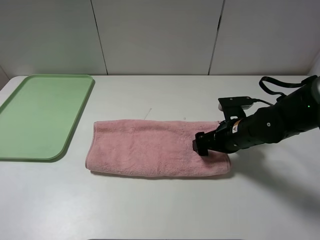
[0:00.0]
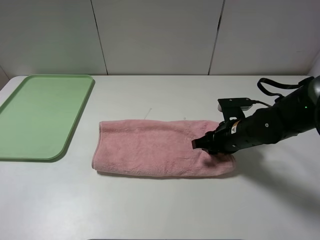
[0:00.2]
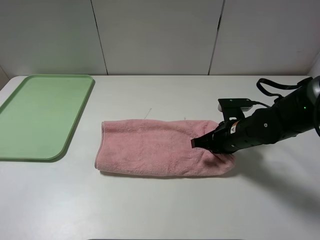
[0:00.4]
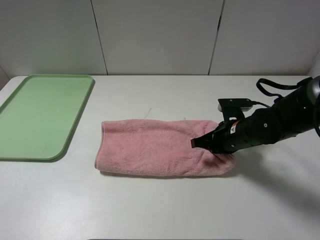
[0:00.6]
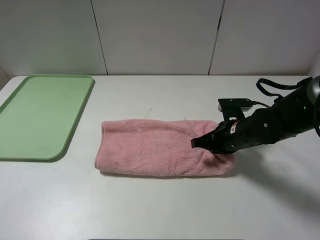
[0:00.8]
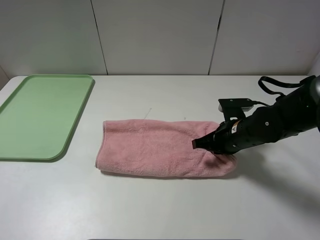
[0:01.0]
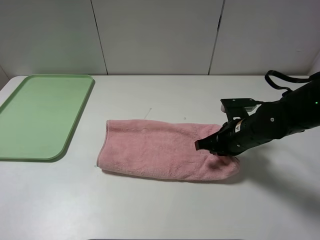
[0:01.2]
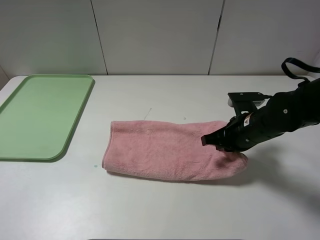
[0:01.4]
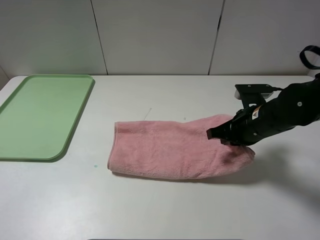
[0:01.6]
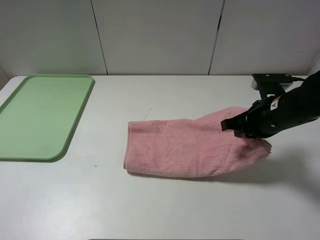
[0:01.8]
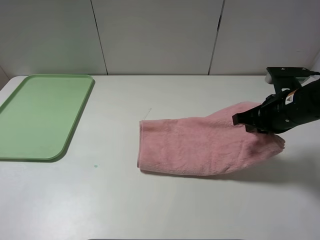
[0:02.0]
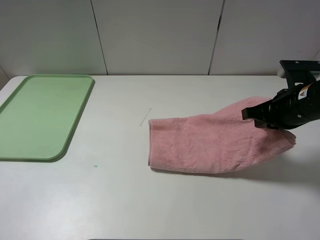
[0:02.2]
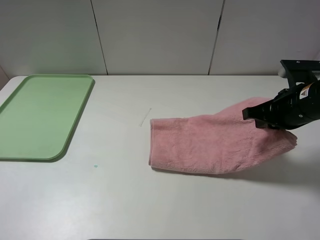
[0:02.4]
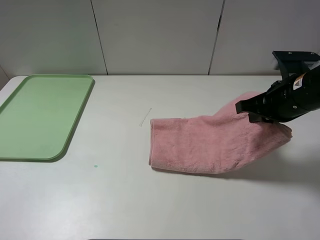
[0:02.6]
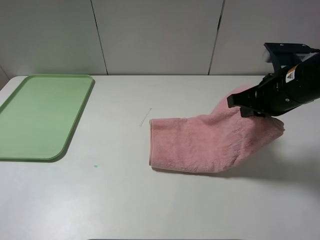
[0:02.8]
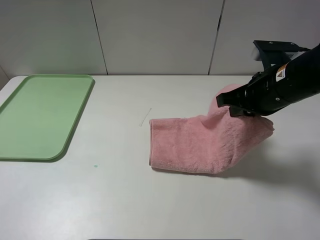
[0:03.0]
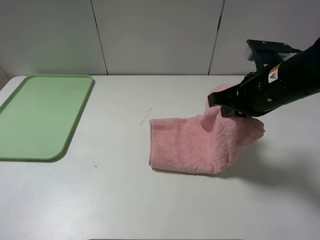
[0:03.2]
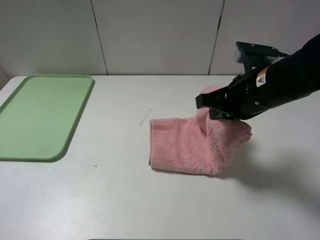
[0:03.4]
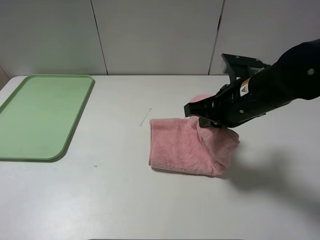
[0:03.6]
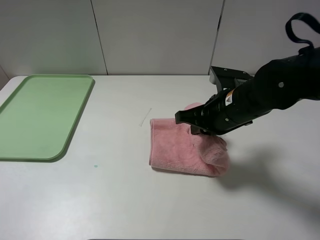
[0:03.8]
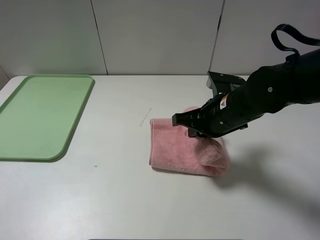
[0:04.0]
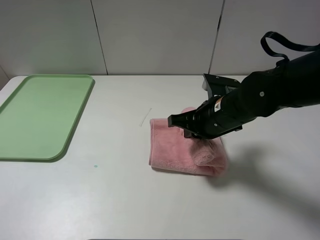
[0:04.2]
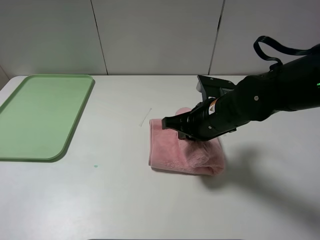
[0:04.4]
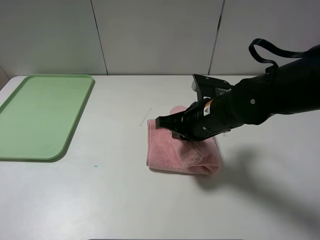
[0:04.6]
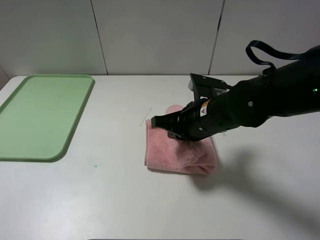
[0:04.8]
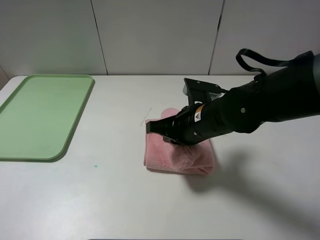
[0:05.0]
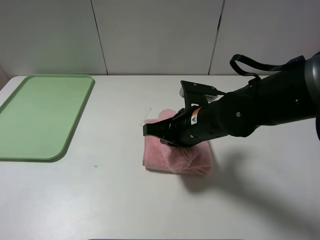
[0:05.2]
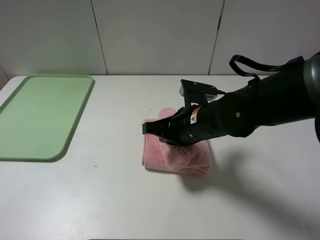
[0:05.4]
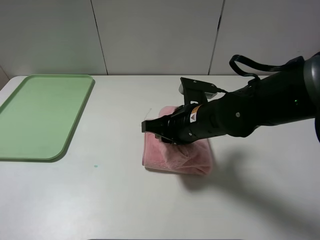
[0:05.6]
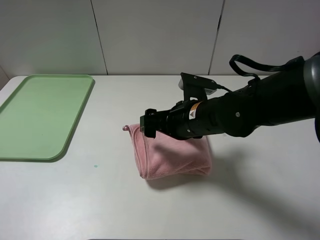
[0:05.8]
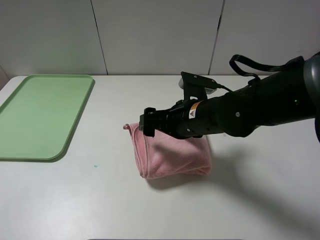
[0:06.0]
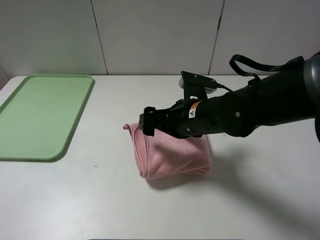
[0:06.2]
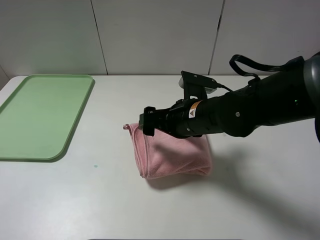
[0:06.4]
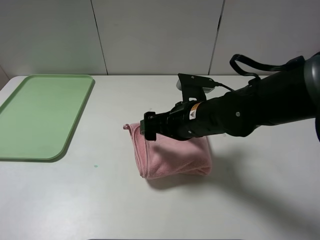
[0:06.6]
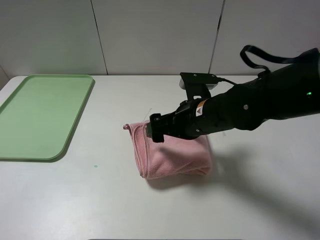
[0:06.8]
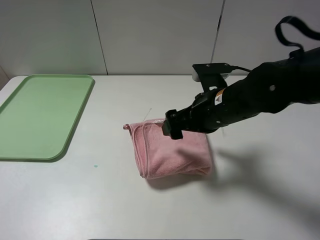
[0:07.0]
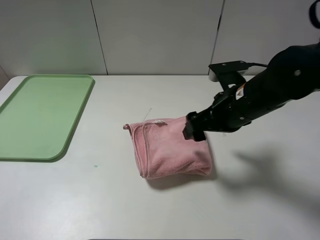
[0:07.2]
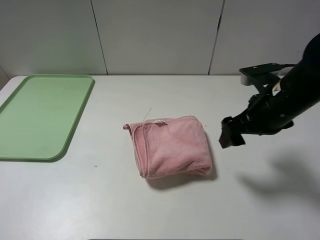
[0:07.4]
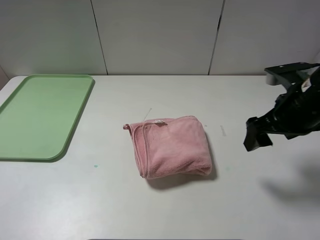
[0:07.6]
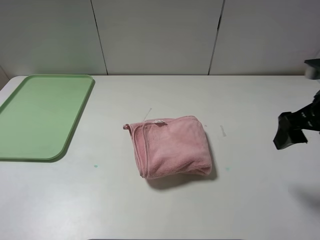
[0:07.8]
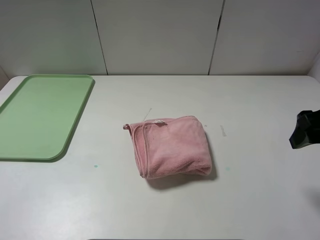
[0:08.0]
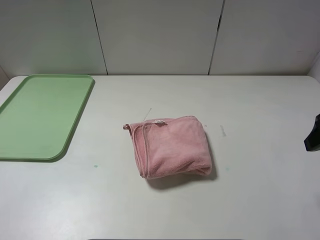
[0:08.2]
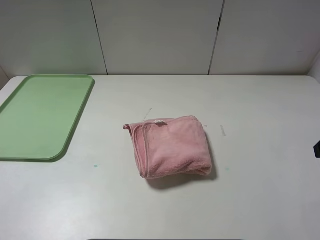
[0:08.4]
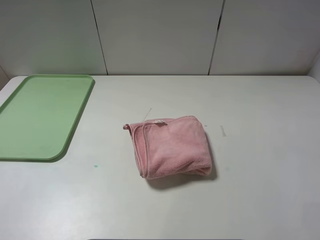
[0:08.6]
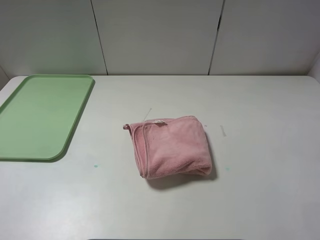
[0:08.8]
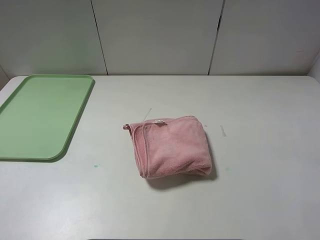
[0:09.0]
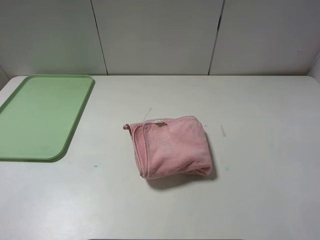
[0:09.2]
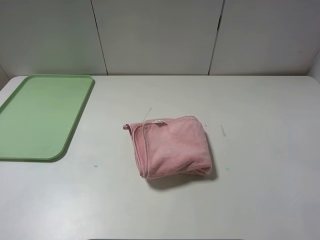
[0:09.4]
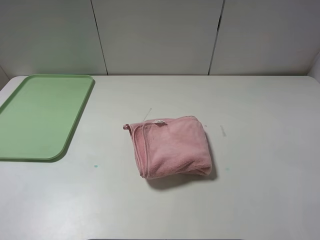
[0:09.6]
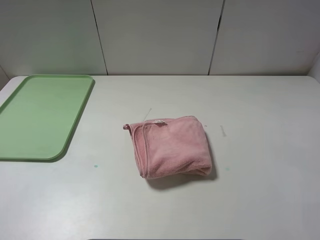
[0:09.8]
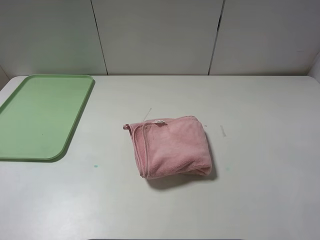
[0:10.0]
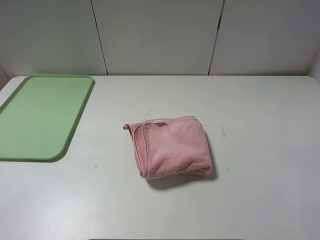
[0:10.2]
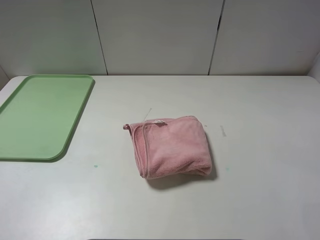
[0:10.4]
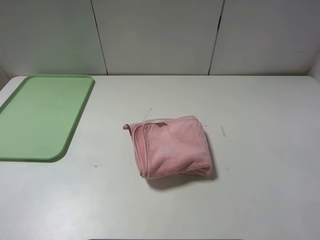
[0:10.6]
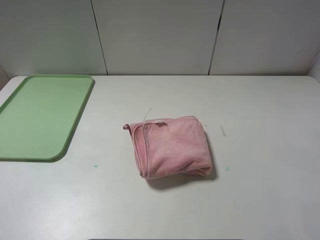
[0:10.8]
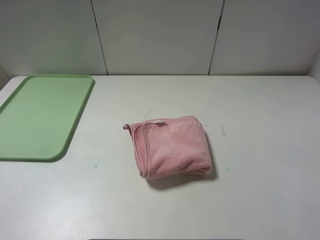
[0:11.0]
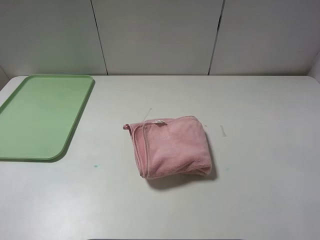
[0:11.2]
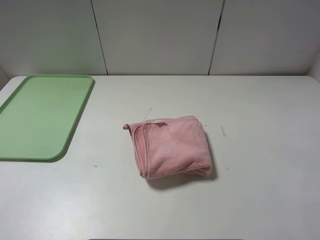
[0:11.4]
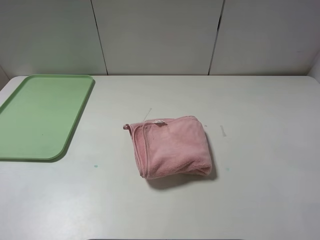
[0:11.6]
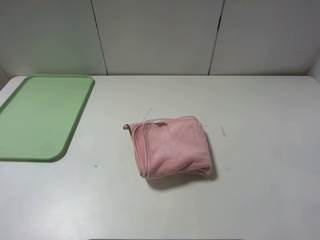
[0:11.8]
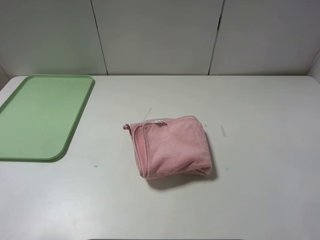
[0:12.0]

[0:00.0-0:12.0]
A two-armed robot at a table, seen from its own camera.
Step, 0:00.0 to 0:06.0: Fold the pink towel from right to left with right gripper.
0:00.0 to 0:01.6: The right gripper goes about 5 cm upward, and closes.
0:01.6 to 0:03.0: The right gripper moves upward, approximately 10 cm.
0:03.0 to 0:04.4: The right gripper is displaced to the left and downward by some 10 cm.
0:04.4 to 0:06.0: The right gripper opens its fingers.
0:06.0 to 0:07.6: The right gripper is displaced to the right and upward by about 20 cm.
0:07.6 to 0:09.0: The right gripper moves backward, approximately 15 cm.

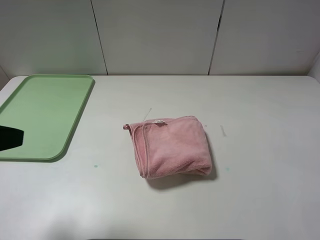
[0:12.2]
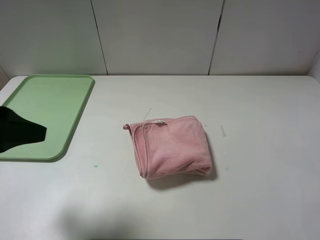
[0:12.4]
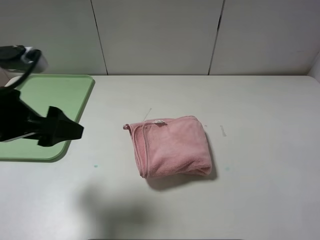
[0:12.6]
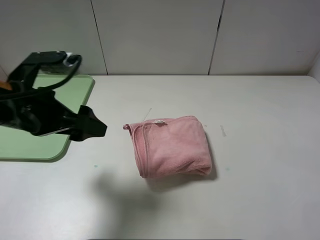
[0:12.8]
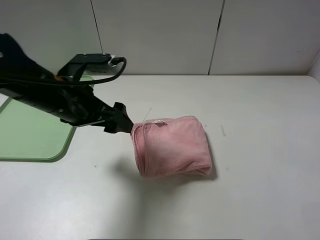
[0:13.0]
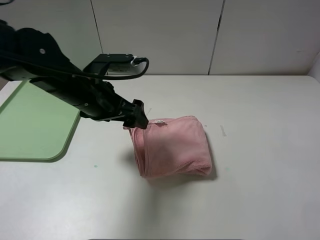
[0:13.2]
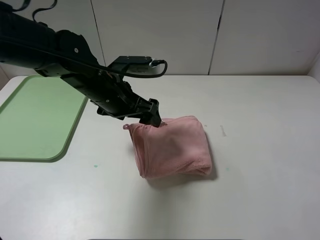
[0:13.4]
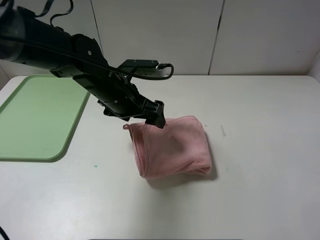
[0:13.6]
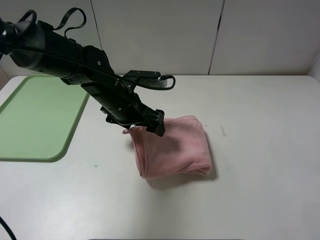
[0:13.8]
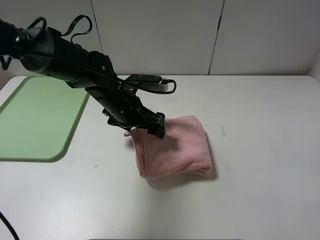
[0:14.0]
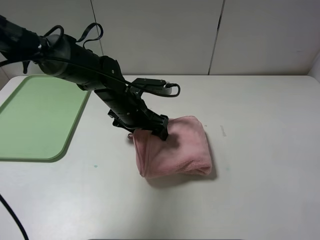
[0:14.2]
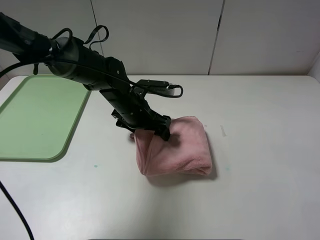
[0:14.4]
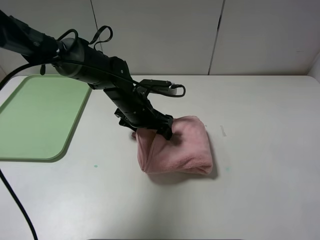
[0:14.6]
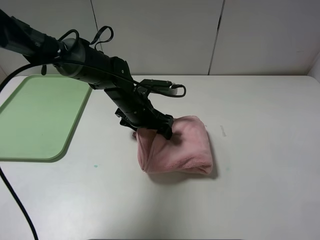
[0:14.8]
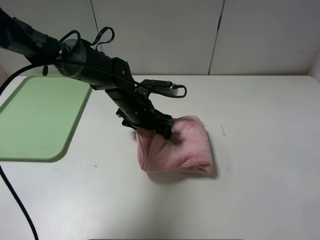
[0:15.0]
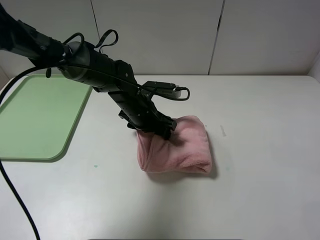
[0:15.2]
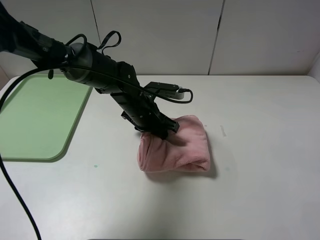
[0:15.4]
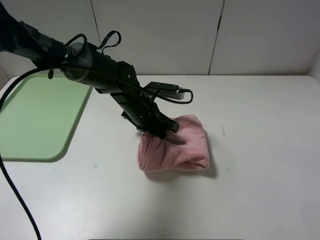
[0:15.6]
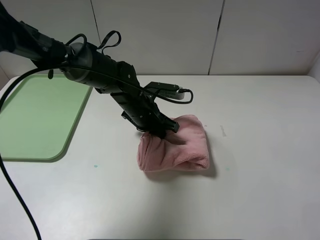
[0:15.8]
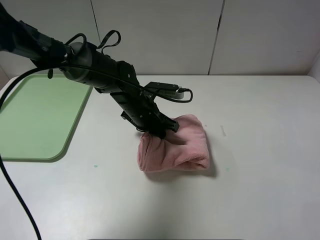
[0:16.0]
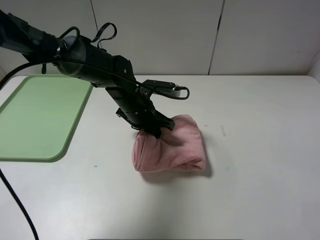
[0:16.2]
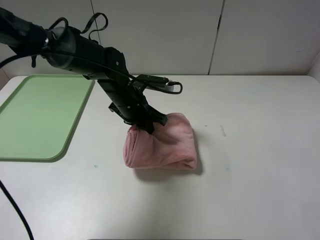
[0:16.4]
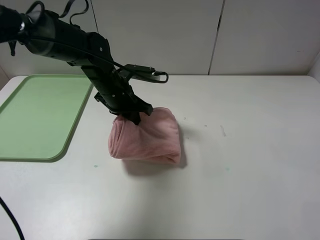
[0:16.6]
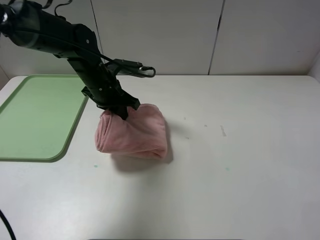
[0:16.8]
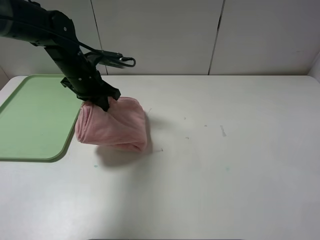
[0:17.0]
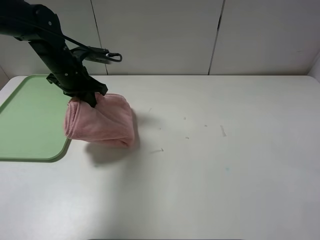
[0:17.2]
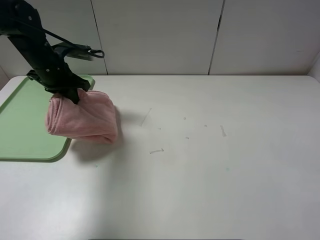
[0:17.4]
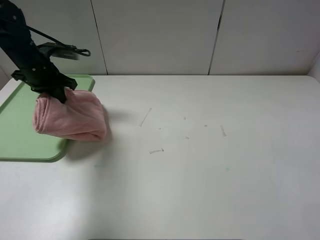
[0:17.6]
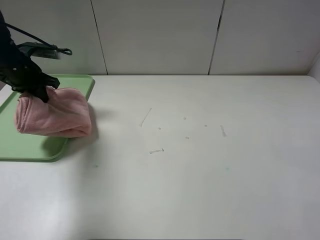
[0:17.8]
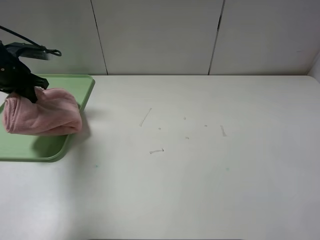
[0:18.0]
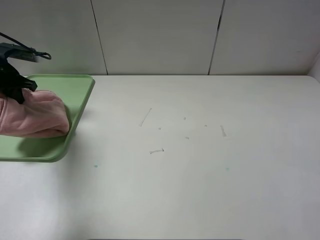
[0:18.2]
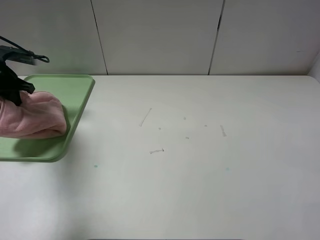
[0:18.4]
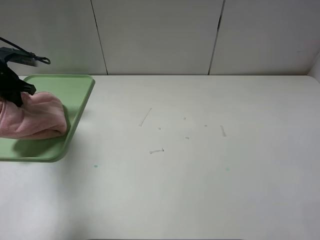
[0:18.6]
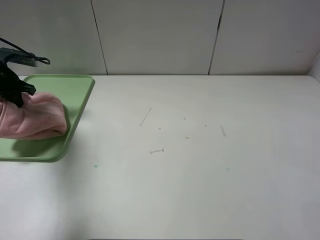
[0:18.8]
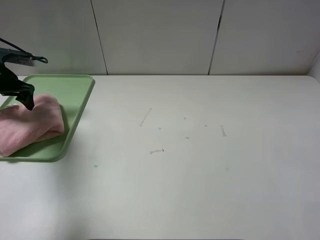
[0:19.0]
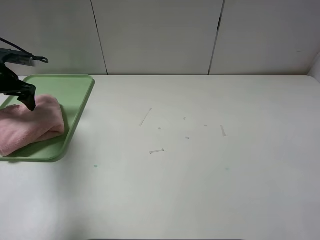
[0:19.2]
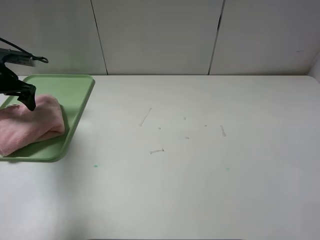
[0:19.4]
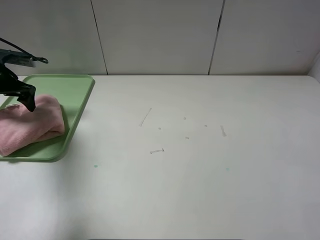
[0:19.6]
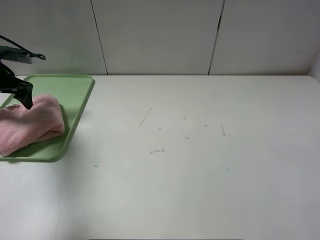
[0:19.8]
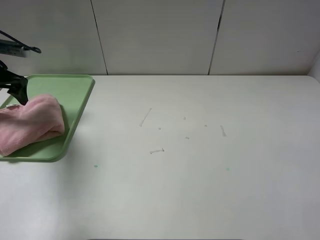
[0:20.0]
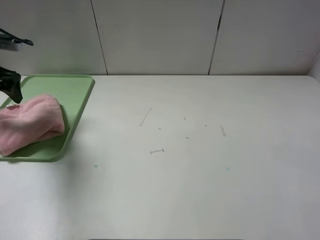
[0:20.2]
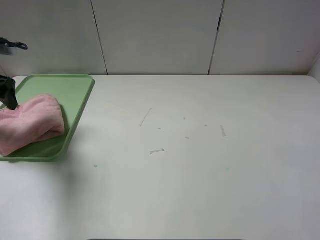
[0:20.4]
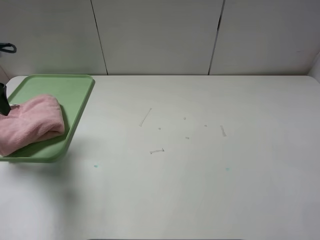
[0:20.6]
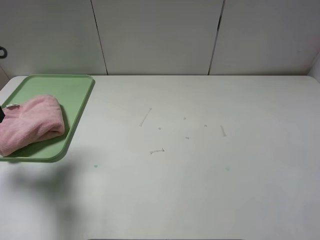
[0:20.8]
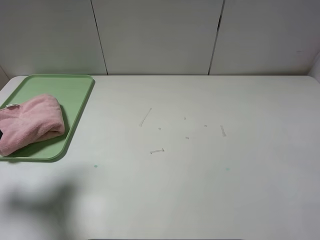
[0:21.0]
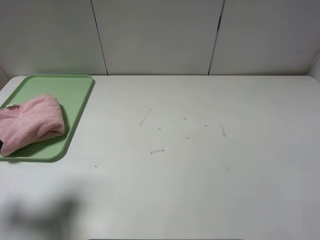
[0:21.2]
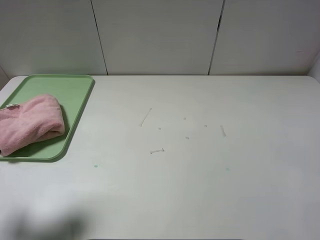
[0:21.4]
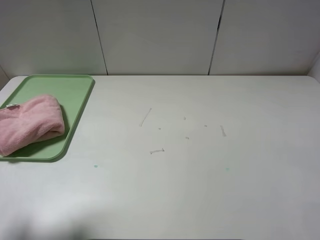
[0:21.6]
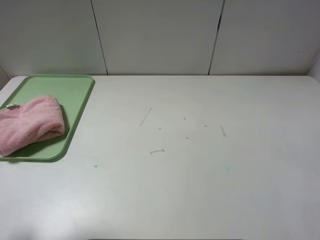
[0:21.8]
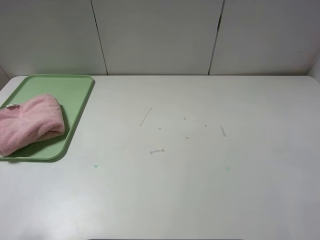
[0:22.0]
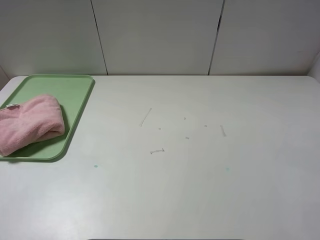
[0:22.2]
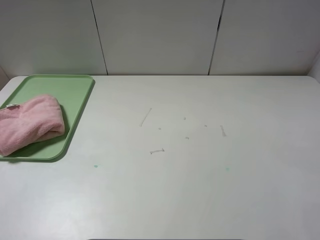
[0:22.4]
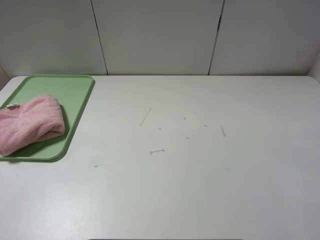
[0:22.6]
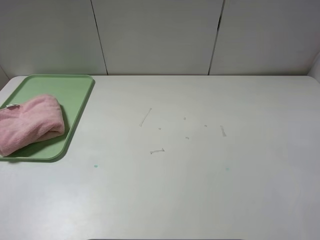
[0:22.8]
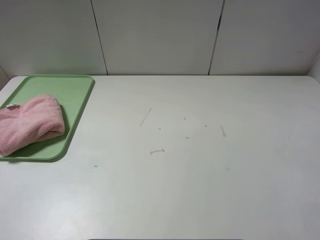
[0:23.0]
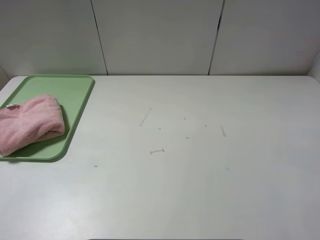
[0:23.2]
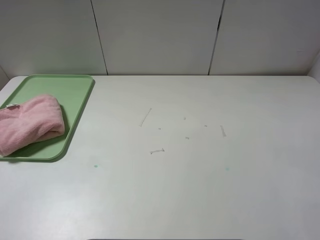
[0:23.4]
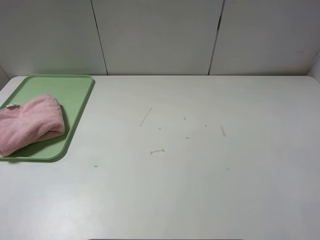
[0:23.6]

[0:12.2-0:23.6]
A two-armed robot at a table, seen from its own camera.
Step, 0:12.2 to 0:19.2: Place the folded pink towel on the tray with the left gripper.
0:12.2 to 0:13.6: The left gripper travels forward, to the right and downward by roughly 30 cm.
0:13.6 to 0:15.0: The left gripper travels downward by roughly 5 cm.
0:15.0 to 0:16.4: The left gripper closes its fingers.
0:16.4 to 0:17.8: The left gripper goes some 25 cm to the left.
0:17.8 to 0:19.4: The left gripper moves to the left, roughly 5 cm, and opens its fingers.
0:19.4 to 0:20.8: The left gripper heads backward and upward, covering approximately 15 cm.
0:20.8 to 0:22.2: The left gripper is displaced backward by roughly 20 cm.
